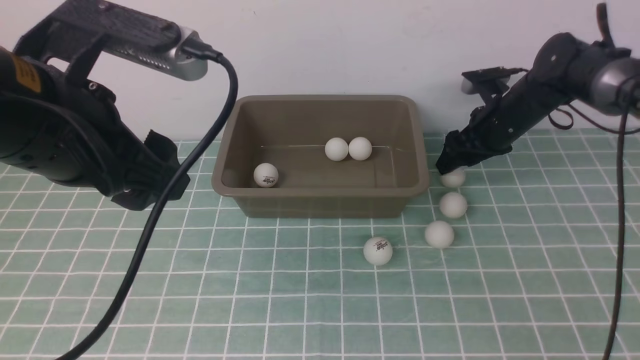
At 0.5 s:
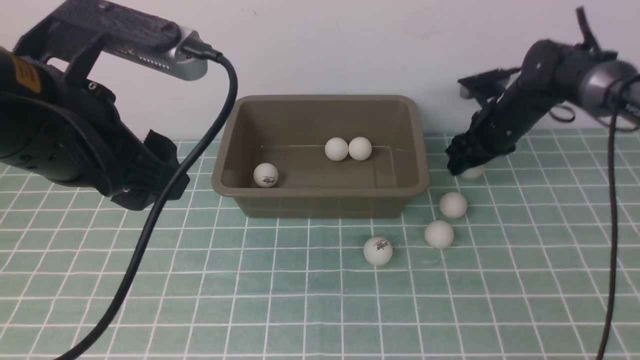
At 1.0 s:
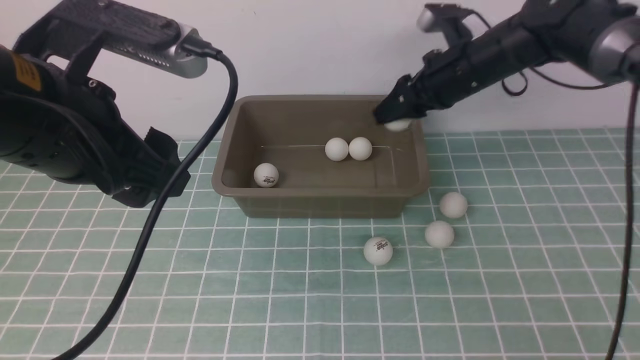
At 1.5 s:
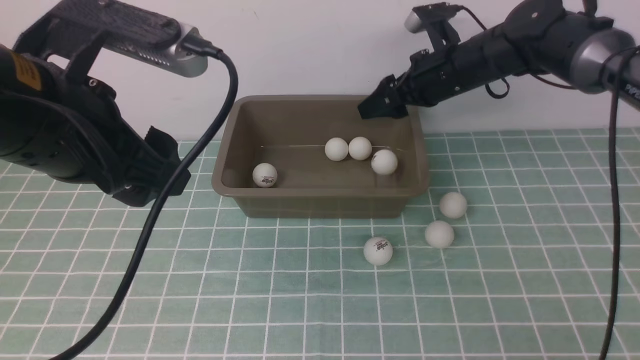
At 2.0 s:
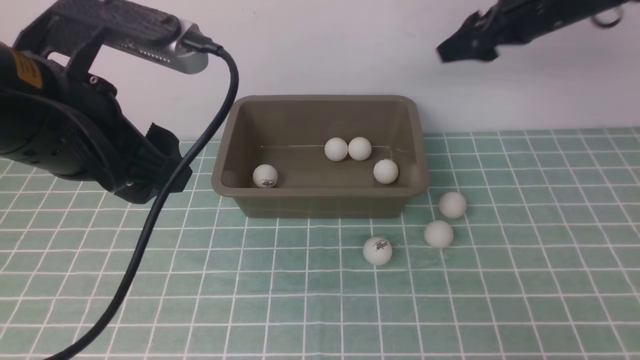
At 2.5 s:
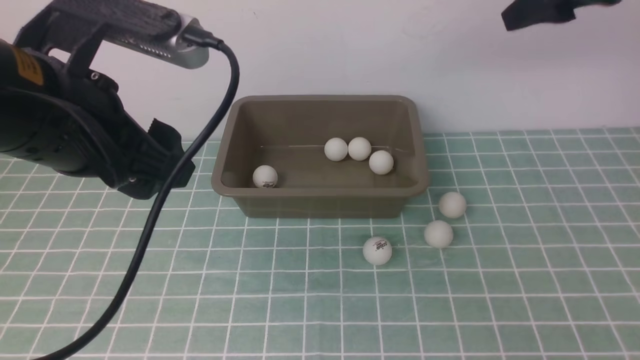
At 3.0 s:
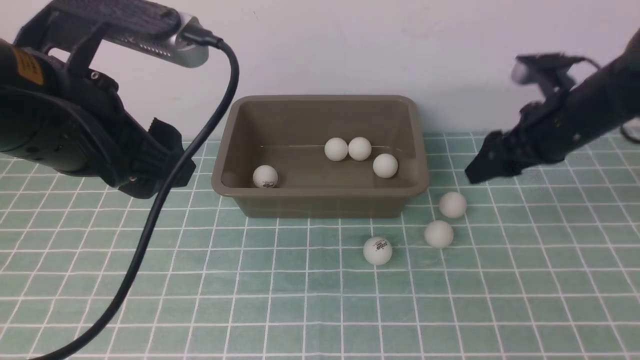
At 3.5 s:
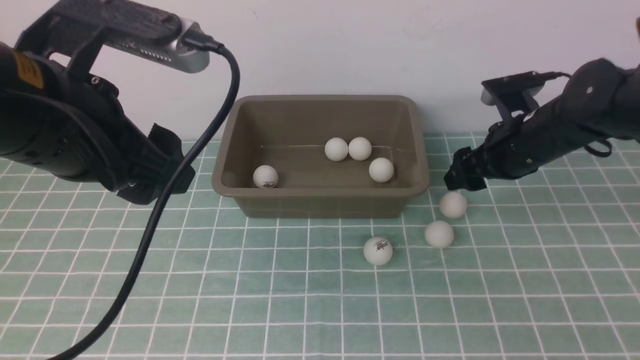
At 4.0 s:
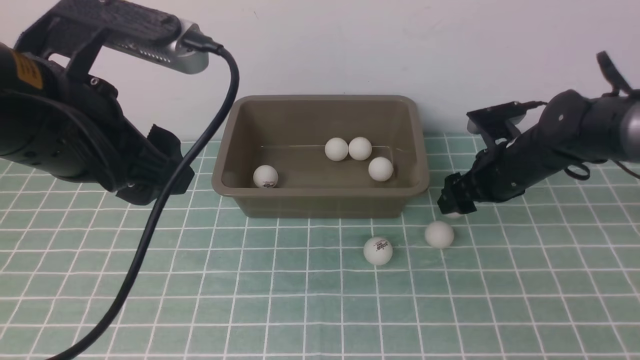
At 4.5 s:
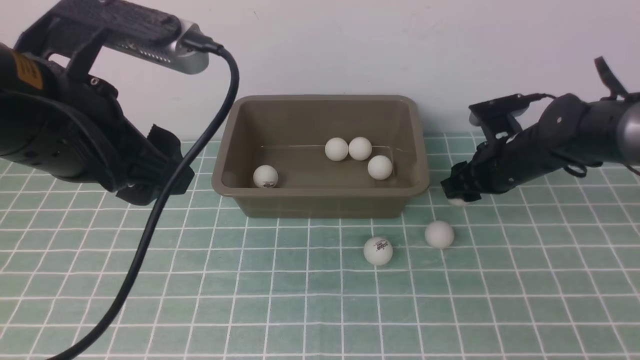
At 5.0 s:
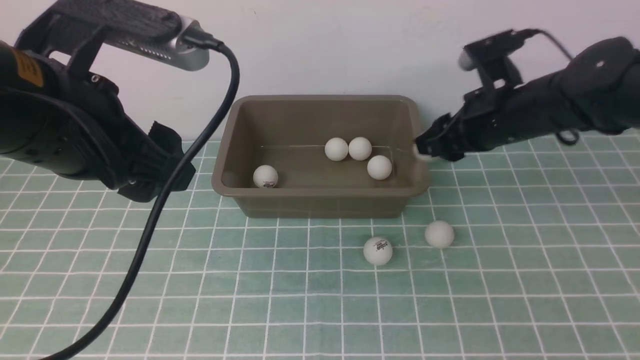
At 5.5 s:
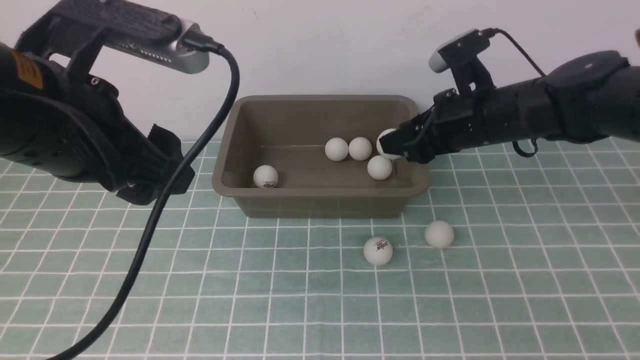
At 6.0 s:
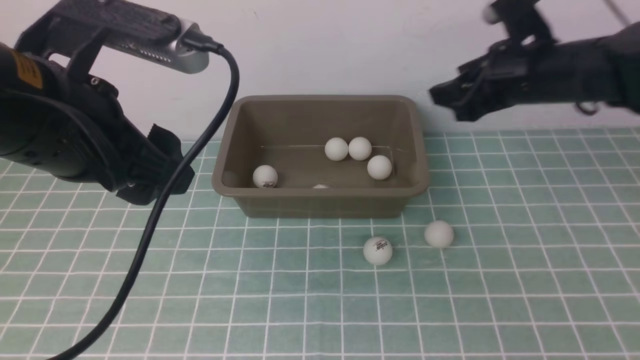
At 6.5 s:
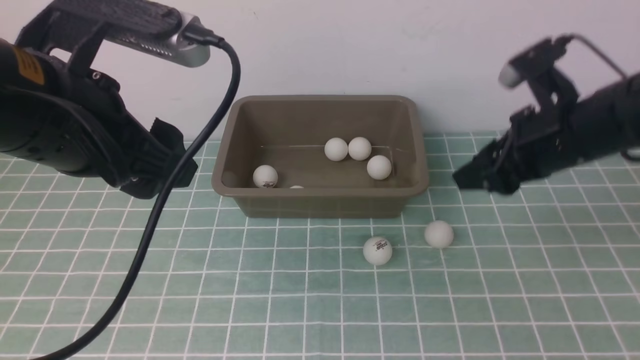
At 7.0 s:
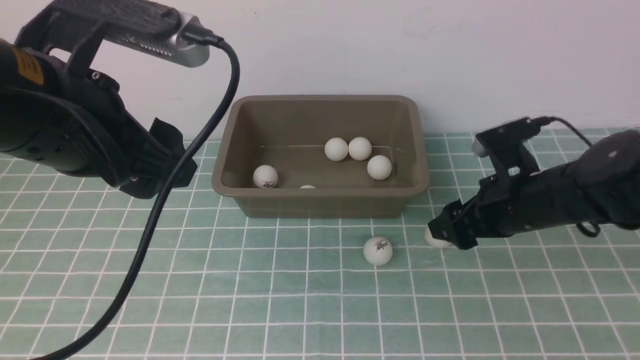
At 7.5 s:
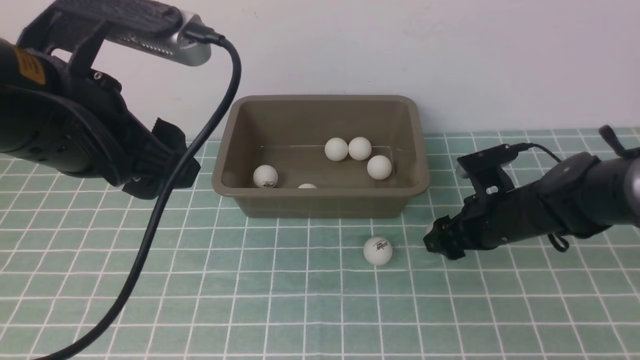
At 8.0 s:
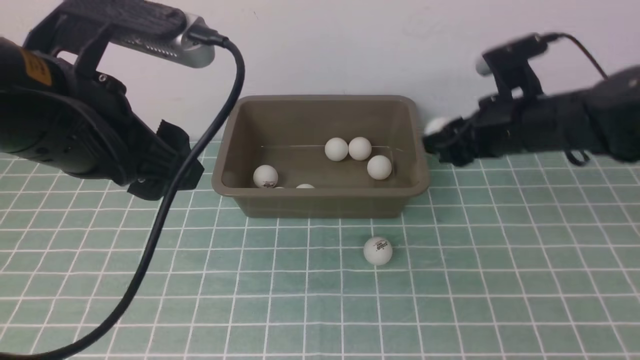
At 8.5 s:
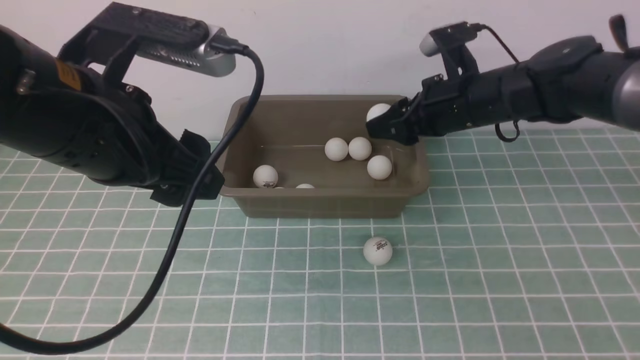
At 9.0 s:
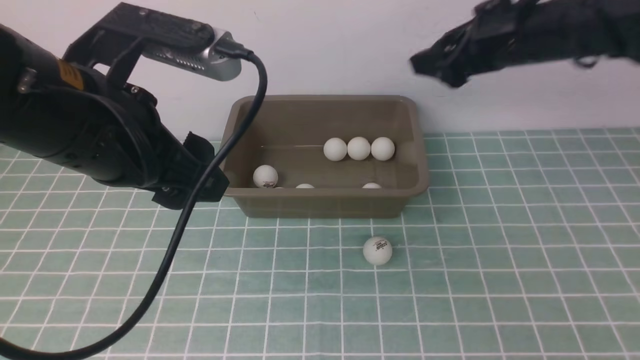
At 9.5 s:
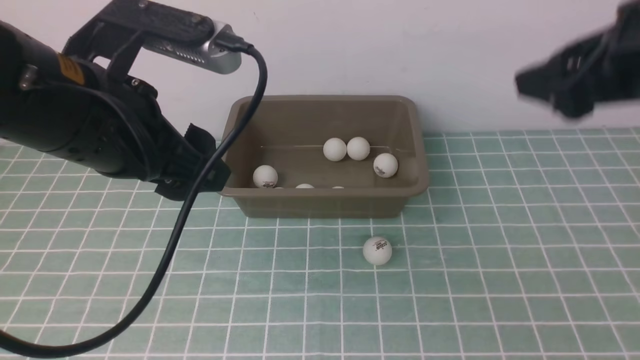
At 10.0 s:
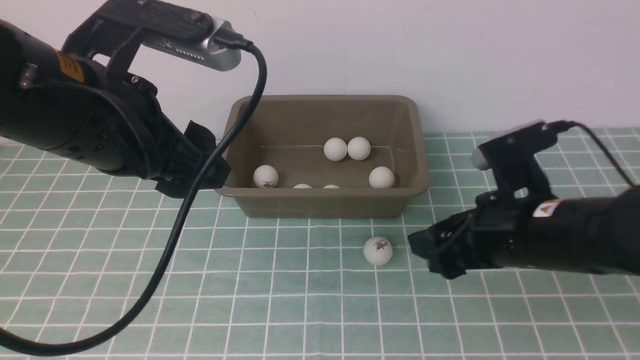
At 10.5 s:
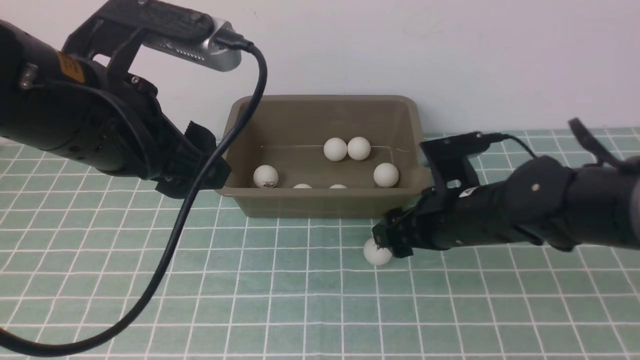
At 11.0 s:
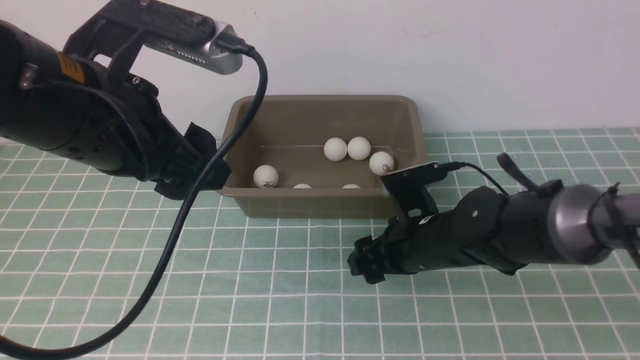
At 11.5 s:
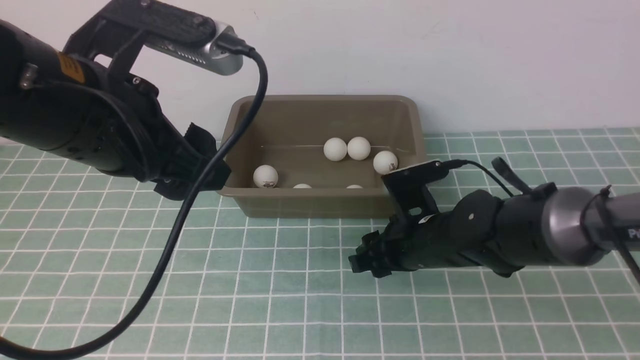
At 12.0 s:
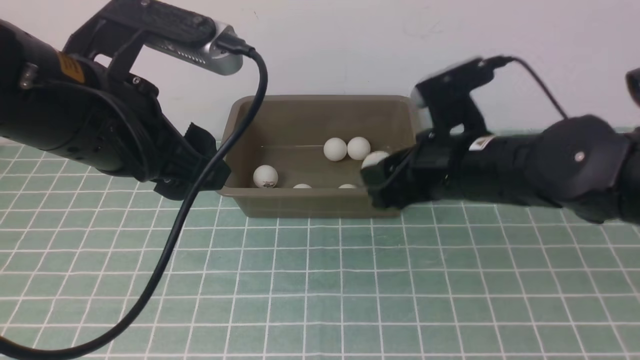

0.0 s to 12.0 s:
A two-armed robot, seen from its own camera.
Step, 1.5 to 4.5 s: use the right arm to clamp the table tennis ball closest to it.
Step, 5.0 to 5.5 s: use the right arm to put the table tennis ball into the box.
Step, 6.0 to 7.5 s: use the right arm to clamp the table tennis ball closest to it.
Step, 8.0 to 8.5 s: use the right arm to put the table tennis ball into the box.
Step, 9.0 to 11.5 s: use the right arm to clamp the table tennis ball closest to it.
0.0 to 2.0 s: The right gripper moves upward and backward, approximately 20 cm, and opens up.
2.0 to 4.0 s: The right gripper moves downward, roughly 25 cm.
4.0 to 6.0 s: The right gripper is displaced upward by approximately 15 cm, and closes, then reopens.
6.0 to 8.0 s: The right gripper heads downward, covering about 5 cm, and closes.
8.0 to 10.0 s: The right gripper shifts approximately 15 cm backward, and opens up.
10.0 to 12.0 s: The right gripper moves forward and to the left, about 10 cm, moves some 10 cm downward and comes back, and closes up.

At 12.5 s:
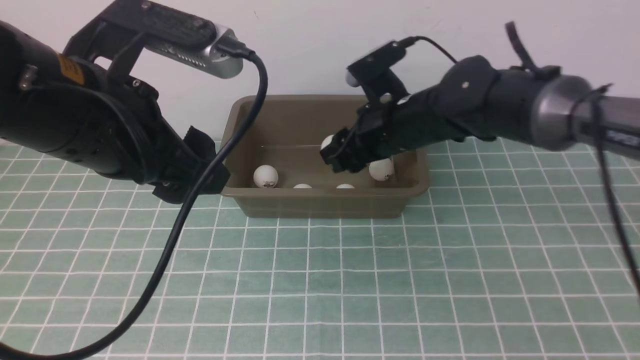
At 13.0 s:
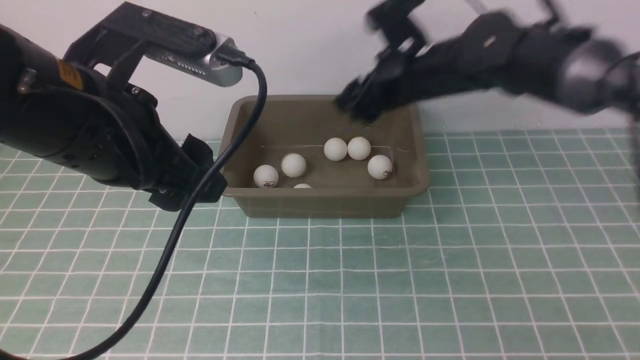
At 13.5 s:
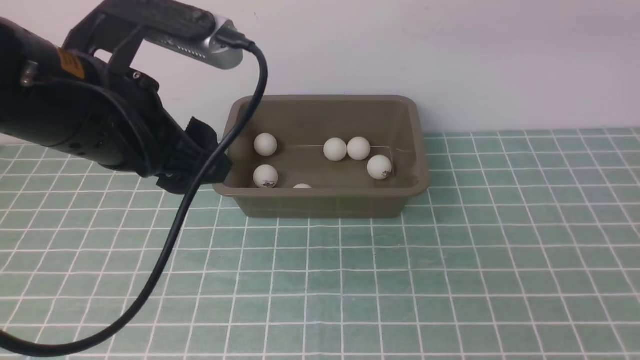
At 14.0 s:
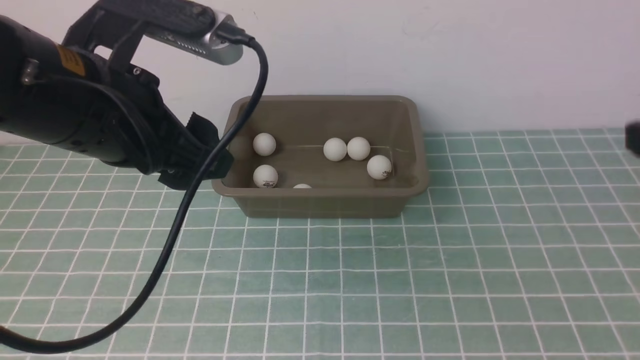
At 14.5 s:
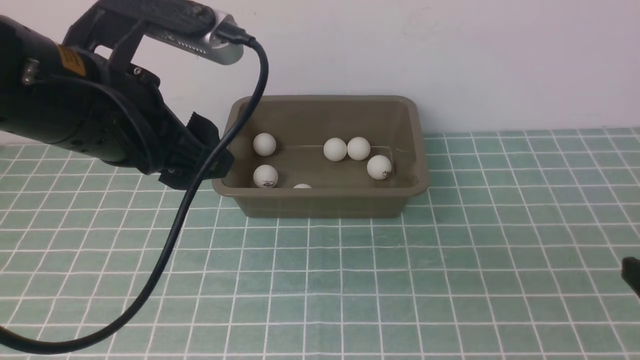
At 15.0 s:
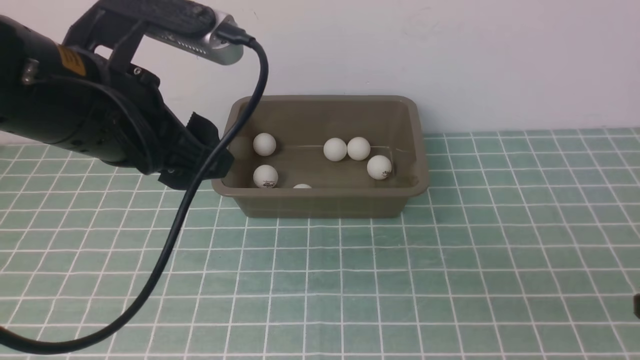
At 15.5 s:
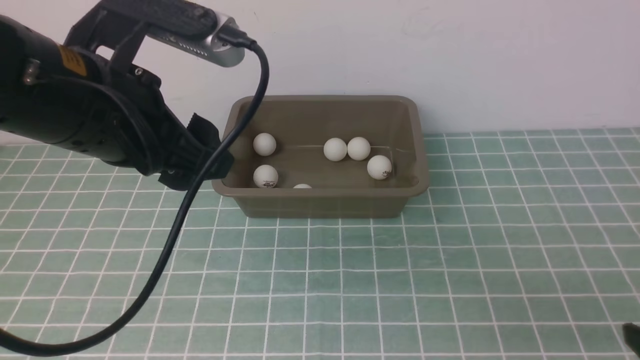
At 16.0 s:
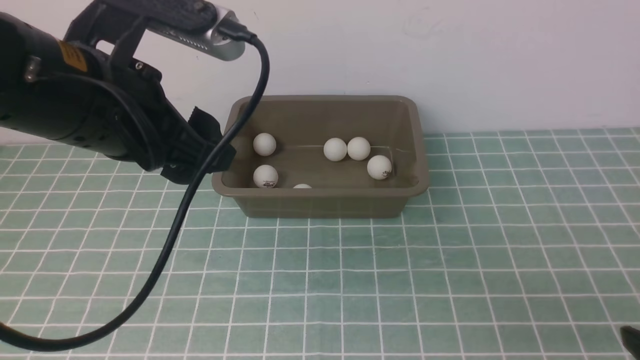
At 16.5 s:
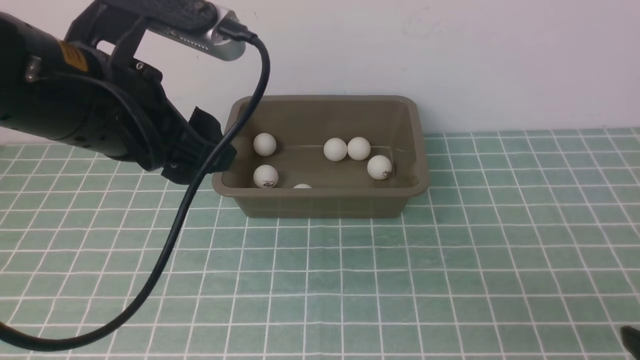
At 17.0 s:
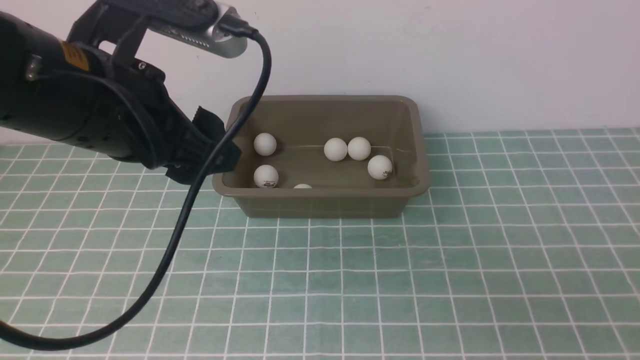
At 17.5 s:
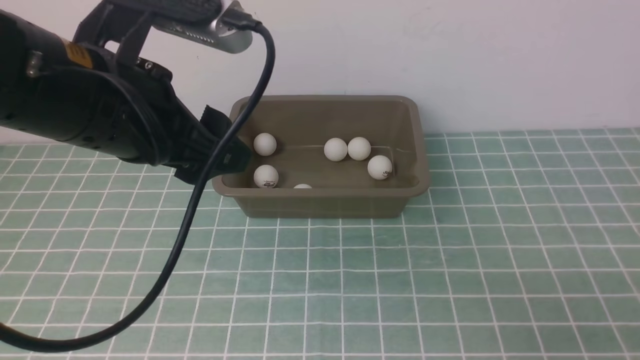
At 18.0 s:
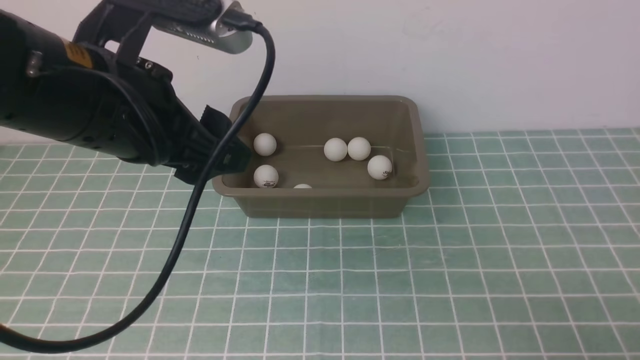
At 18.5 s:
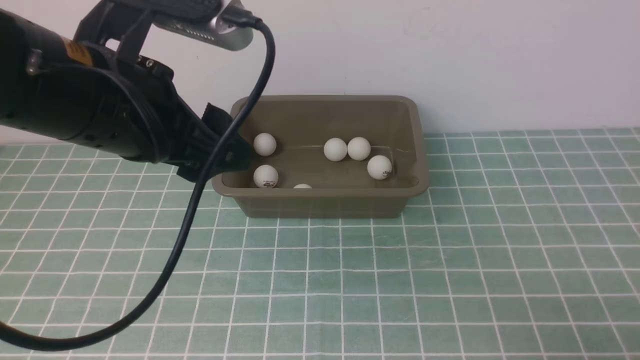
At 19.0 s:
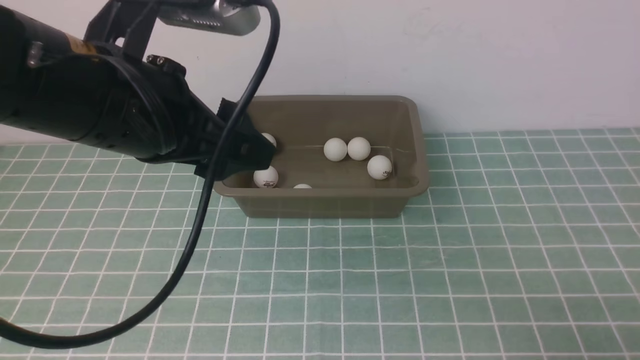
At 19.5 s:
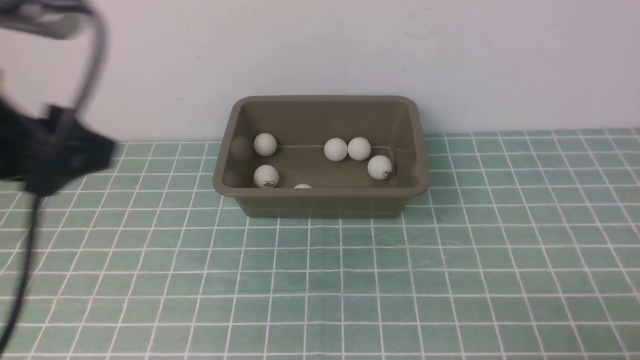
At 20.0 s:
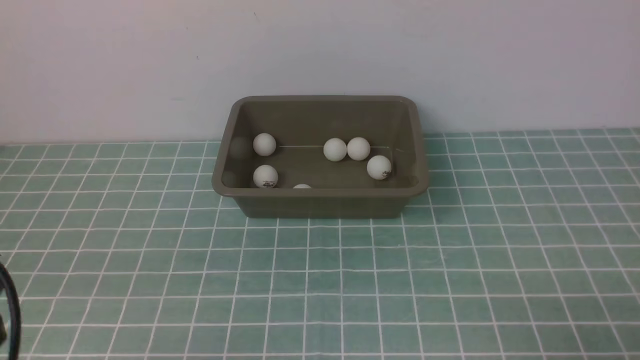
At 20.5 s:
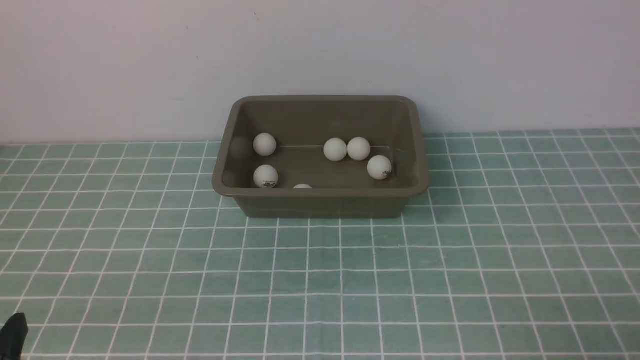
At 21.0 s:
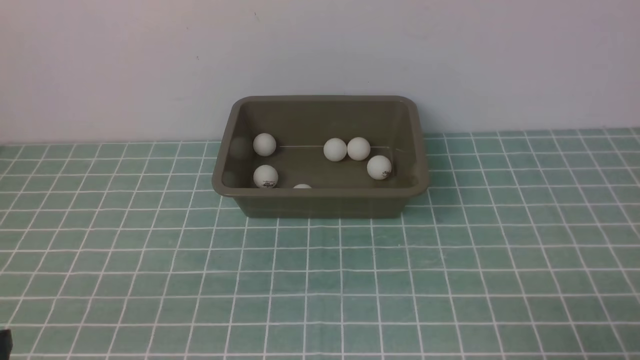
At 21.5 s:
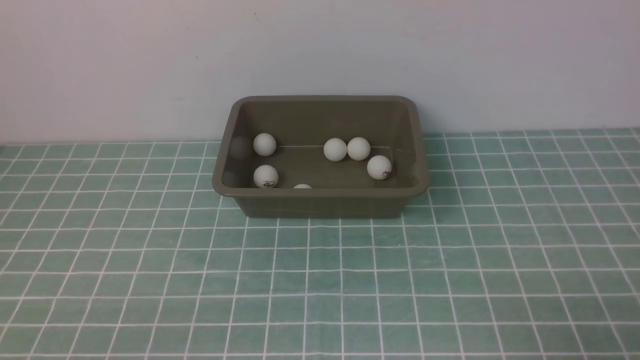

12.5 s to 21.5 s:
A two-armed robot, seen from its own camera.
12.5 to 14.5 s: The right gripper shifts roughly 40 cm backward and to the right.
14.5 to 17.0 s: The right gripper changes place by about 5 cm, and closes its fingers.
17.0 to 19.5 s: The left gripper goes about 10 cm to the left and backward. Meanwhile the right gripper travels downward by approximately 5 cm.
19.5 to 21.5 s: The left gripper goes about 25 cm downward and backward.
